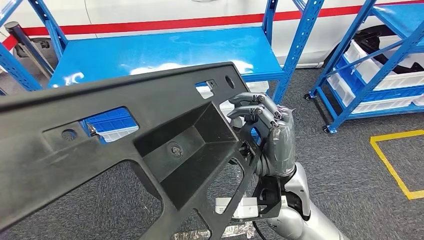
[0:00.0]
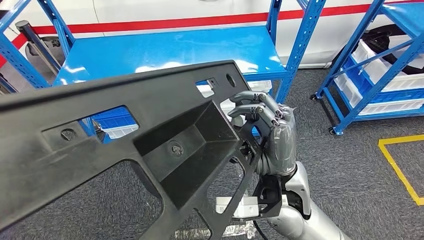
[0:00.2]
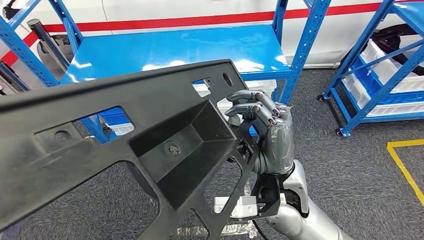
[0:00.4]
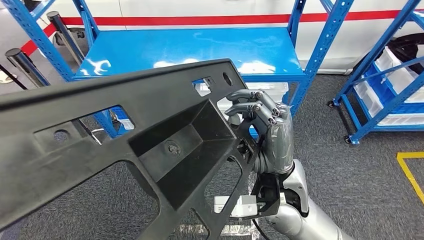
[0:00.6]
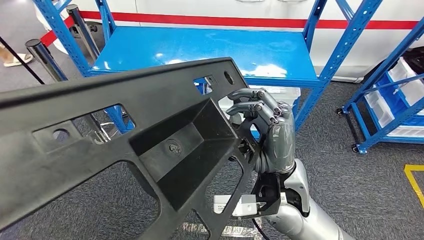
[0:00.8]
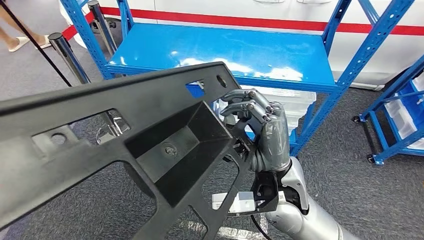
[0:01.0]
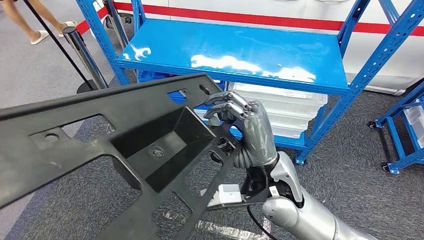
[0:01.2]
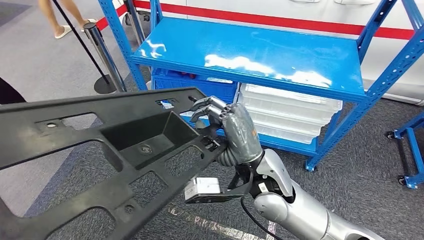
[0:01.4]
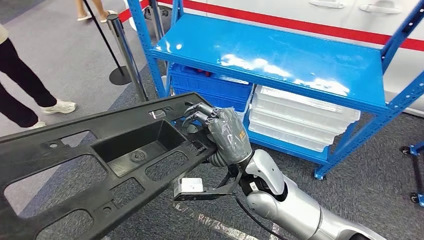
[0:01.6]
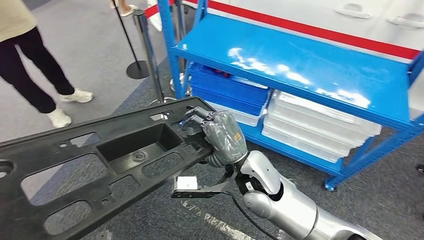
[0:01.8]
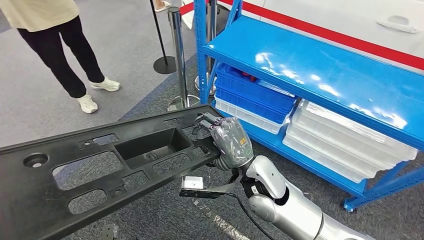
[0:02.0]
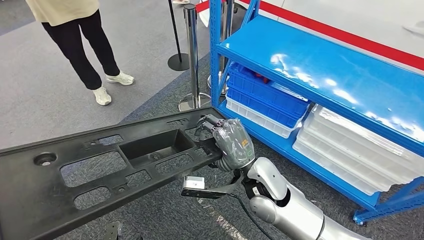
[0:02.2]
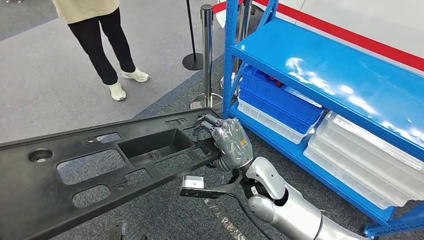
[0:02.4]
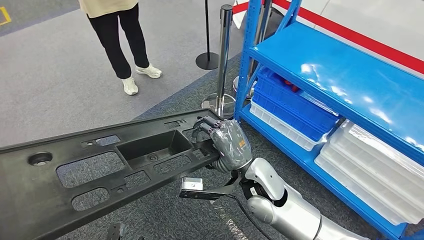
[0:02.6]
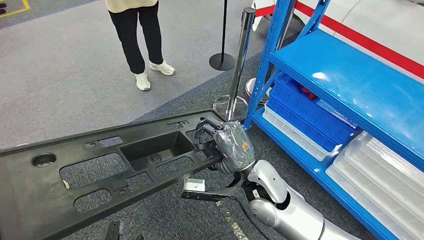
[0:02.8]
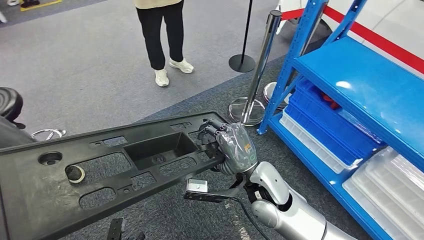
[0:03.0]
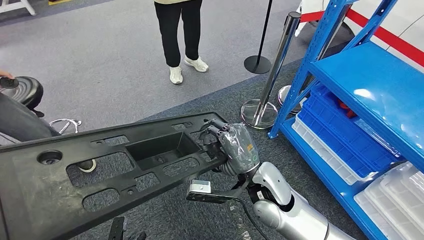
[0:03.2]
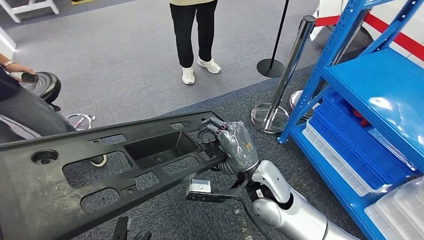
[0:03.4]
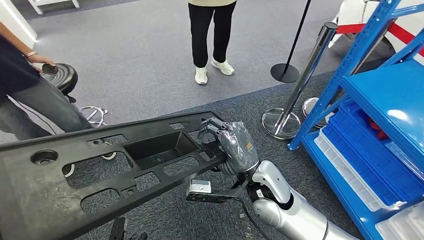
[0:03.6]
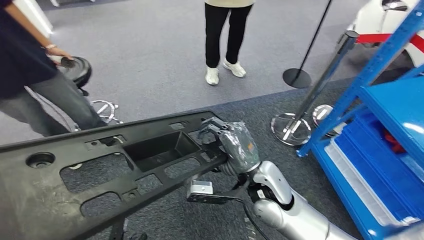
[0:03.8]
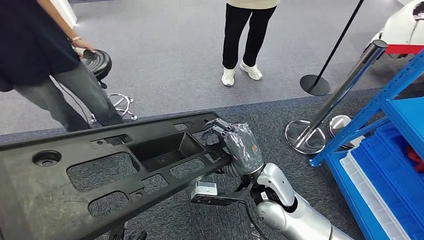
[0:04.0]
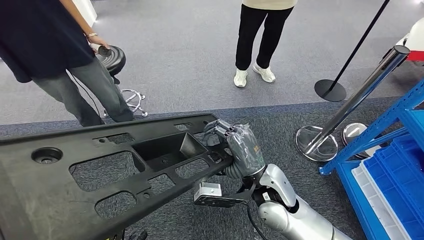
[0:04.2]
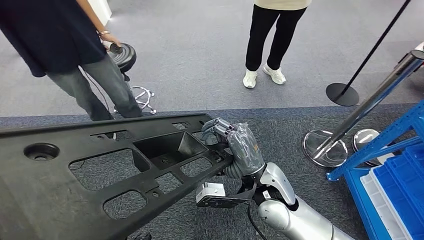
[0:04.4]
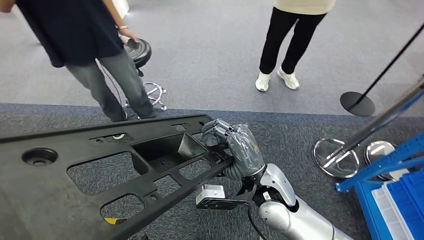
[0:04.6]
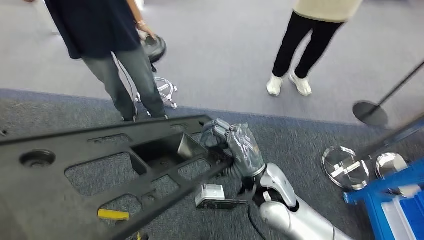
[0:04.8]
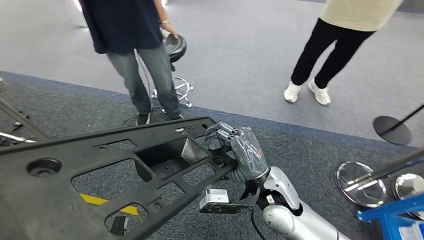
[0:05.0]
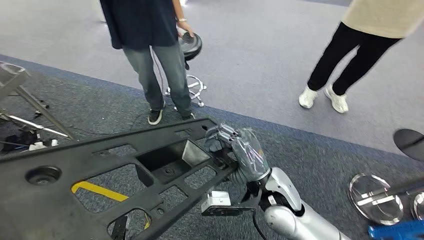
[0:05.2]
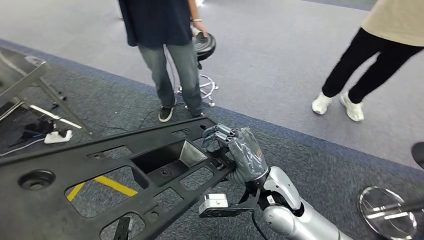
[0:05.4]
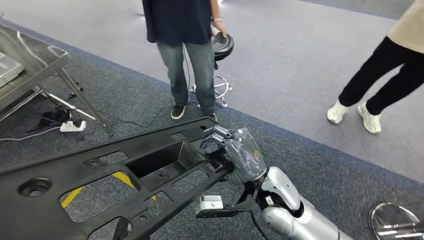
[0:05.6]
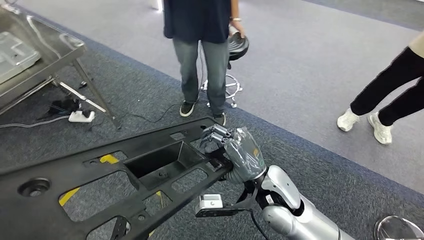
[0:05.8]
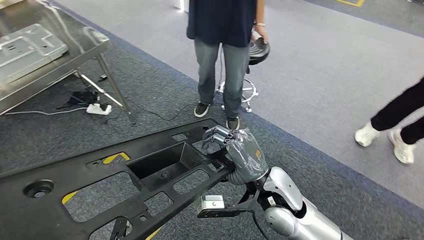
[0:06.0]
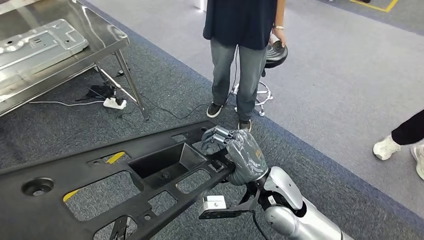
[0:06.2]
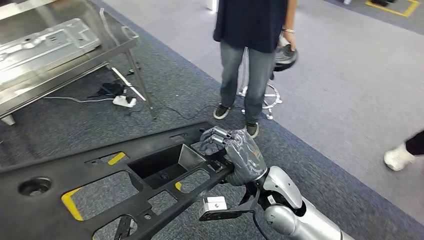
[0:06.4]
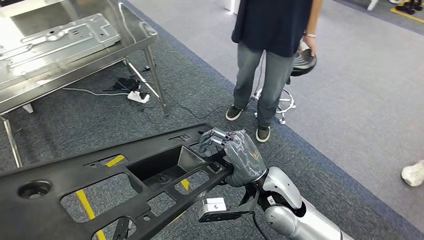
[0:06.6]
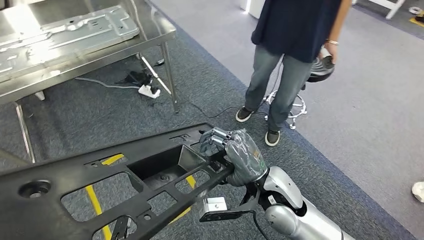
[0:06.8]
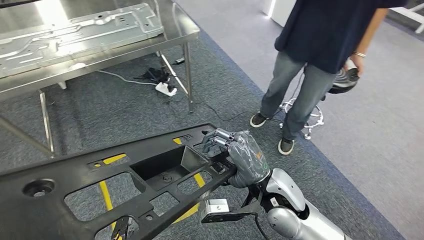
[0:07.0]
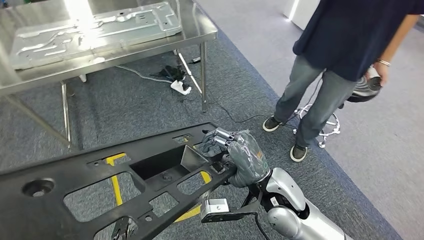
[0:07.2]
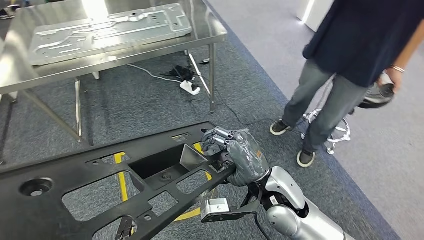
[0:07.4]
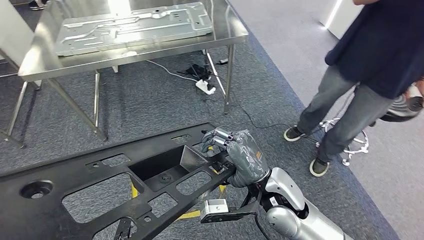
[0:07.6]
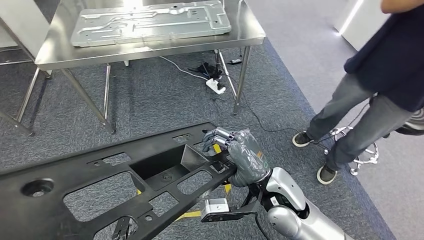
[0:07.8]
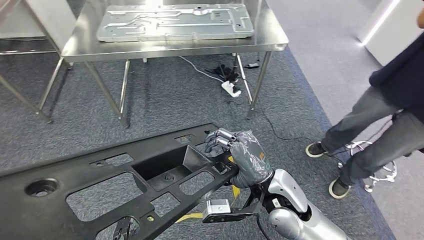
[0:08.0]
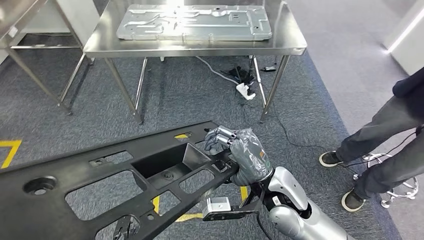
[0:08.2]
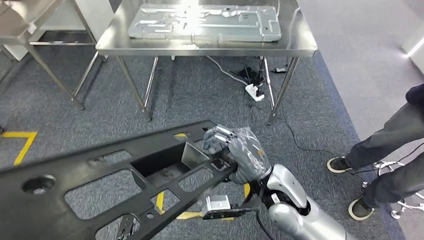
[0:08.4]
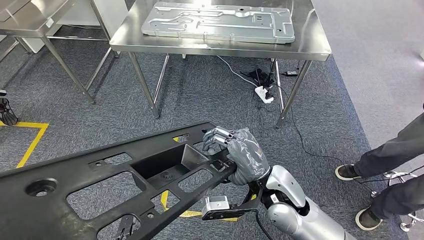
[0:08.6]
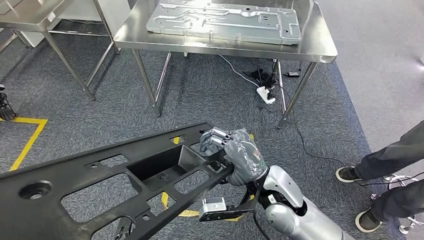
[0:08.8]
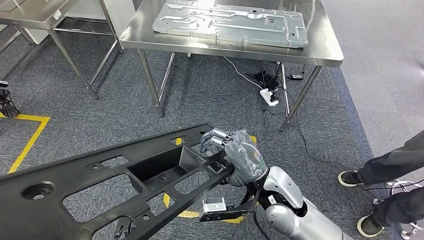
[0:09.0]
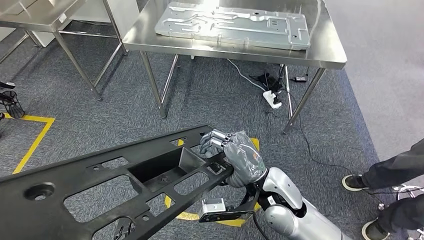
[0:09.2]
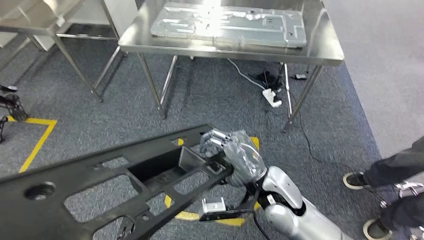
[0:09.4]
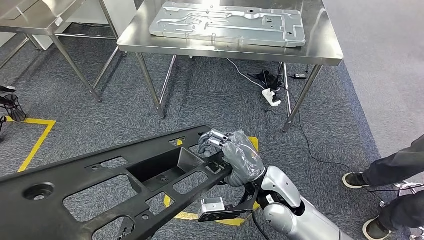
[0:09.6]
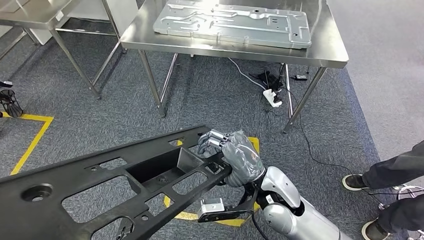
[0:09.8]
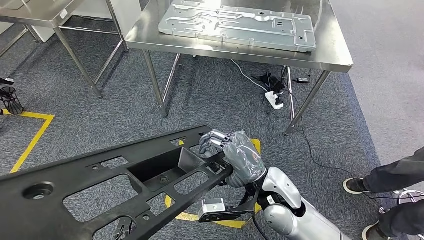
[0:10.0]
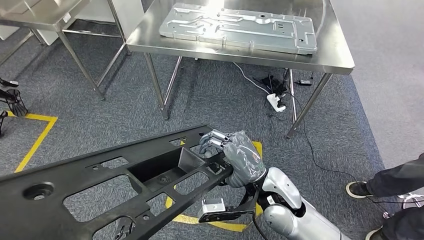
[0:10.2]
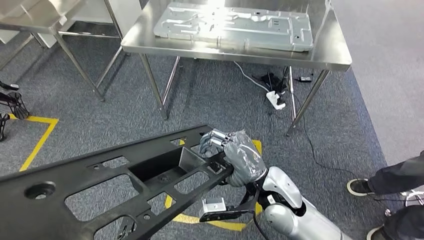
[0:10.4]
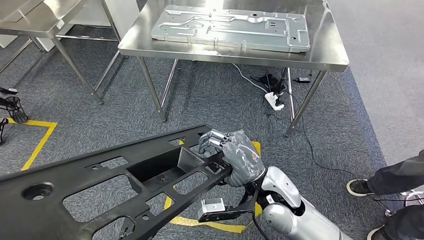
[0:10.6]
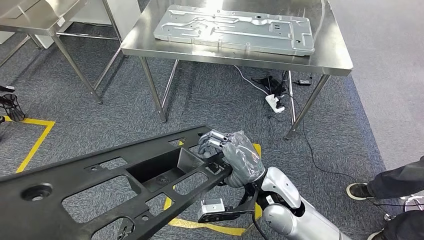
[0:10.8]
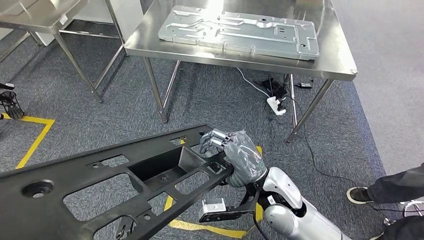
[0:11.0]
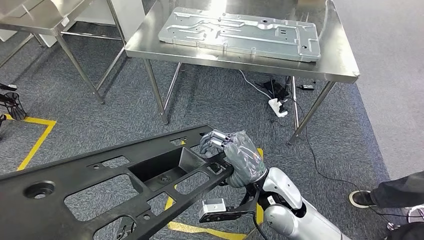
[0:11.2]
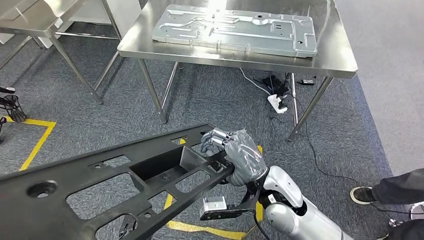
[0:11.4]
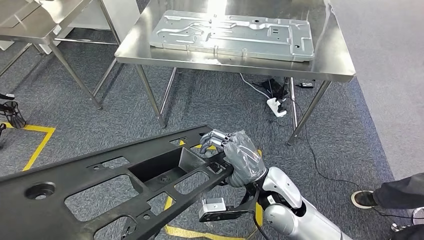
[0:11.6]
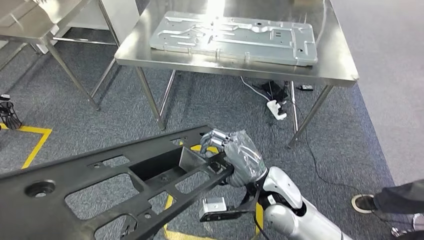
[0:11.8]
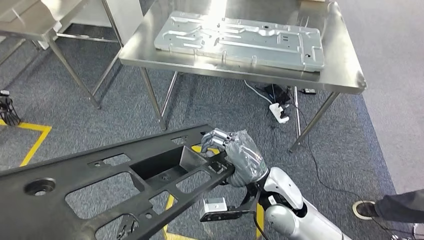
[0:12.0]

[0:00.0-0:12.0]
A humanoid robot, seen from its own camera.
Step, 0:00.0 to 0:10.8: Move the large material to the workbench.

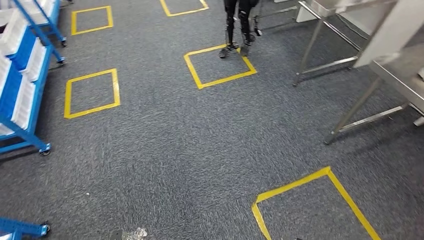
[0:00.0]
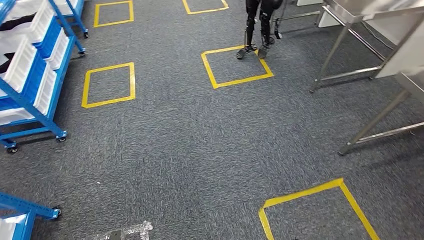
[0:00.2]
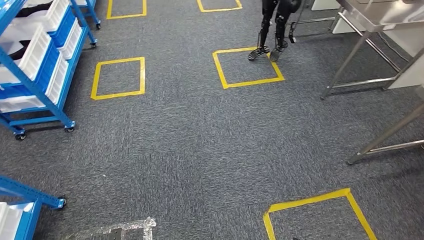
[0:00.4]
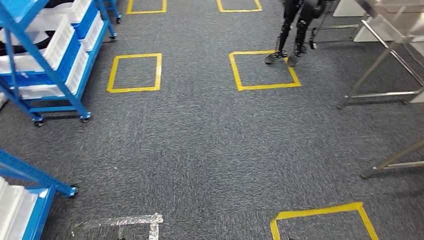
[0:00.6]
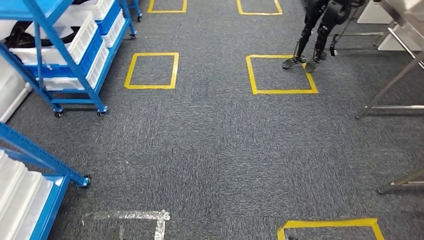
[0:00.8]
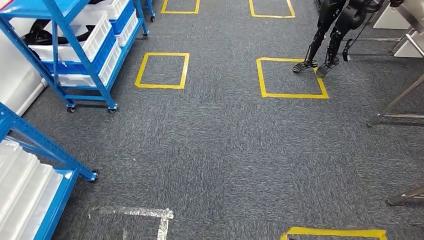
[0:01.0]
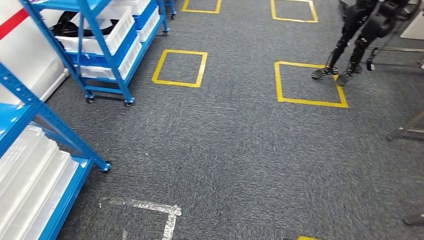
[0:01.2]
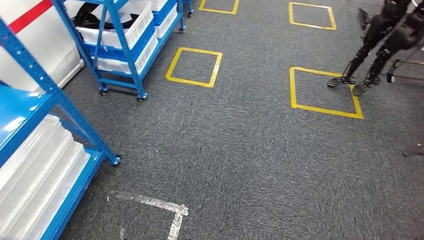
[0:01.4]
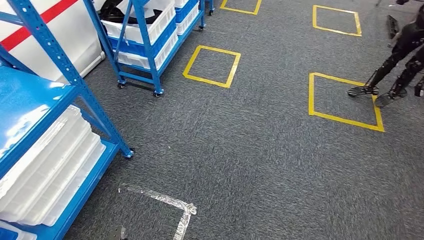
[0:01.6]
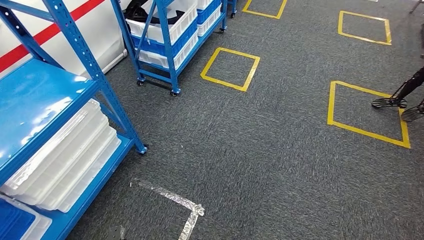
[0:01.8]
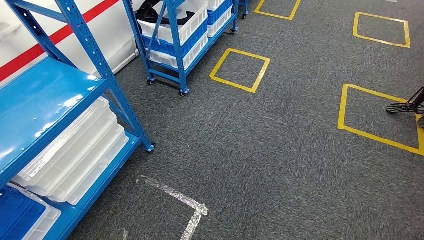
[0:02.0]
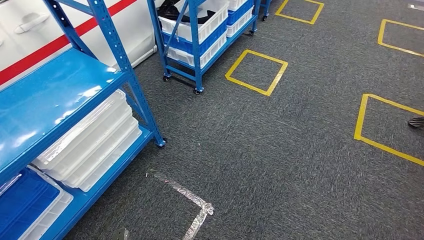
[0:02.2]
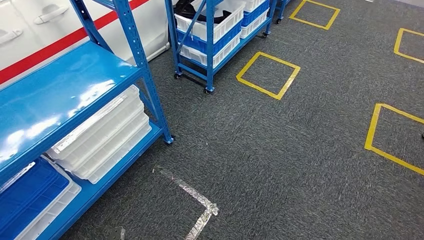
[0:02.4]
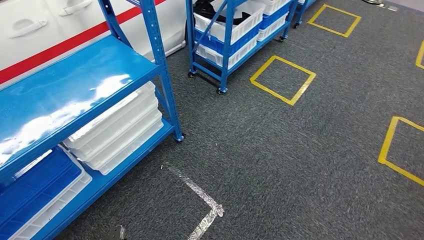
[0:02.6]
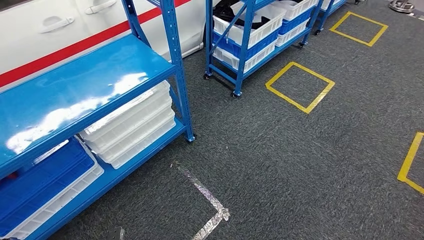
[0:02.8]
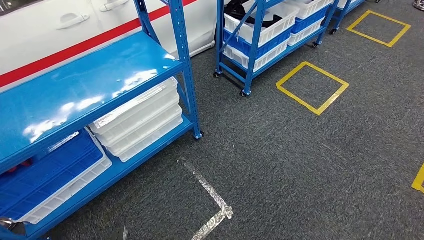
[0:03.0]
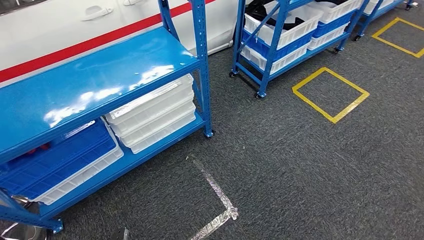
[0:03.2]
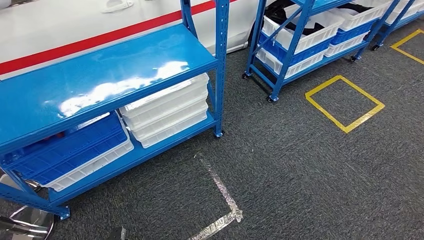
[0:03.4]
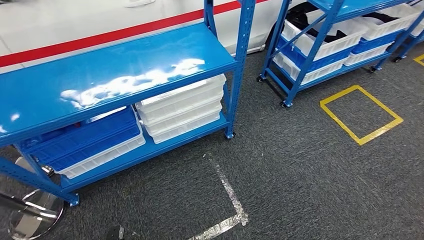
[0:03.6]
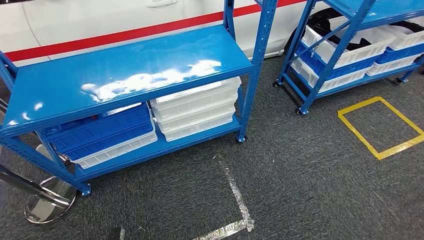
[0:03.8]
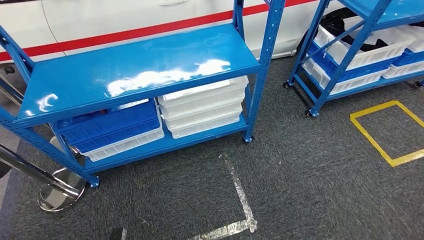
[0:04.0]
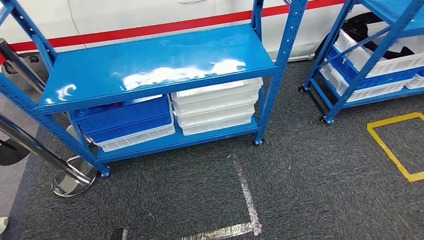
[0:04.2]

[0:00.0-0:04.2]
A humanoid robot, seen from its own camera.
Step, 0:00.0 to 0:04.2: Move to the initial position of the shelf.
